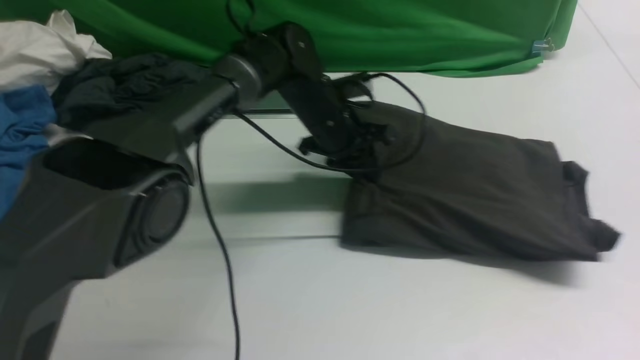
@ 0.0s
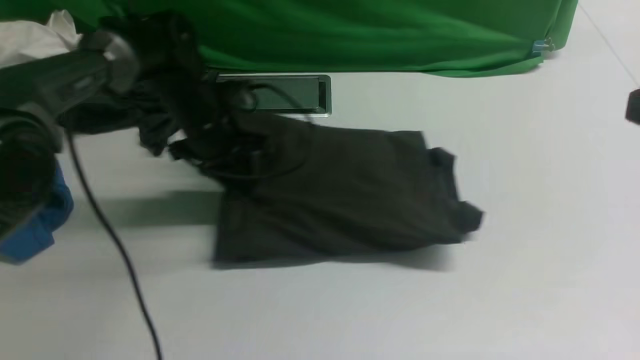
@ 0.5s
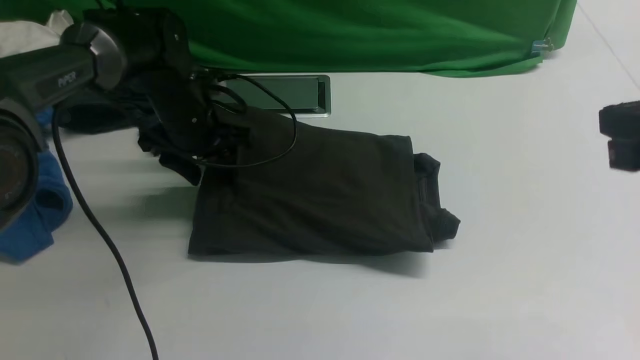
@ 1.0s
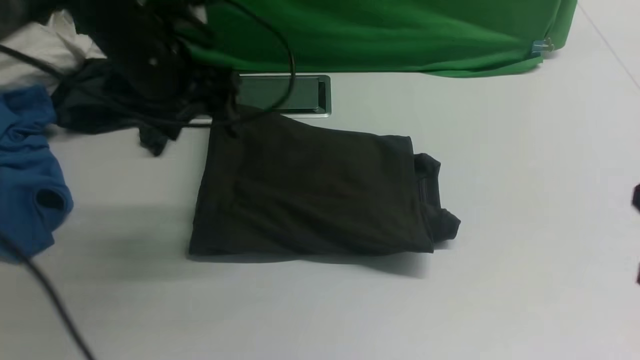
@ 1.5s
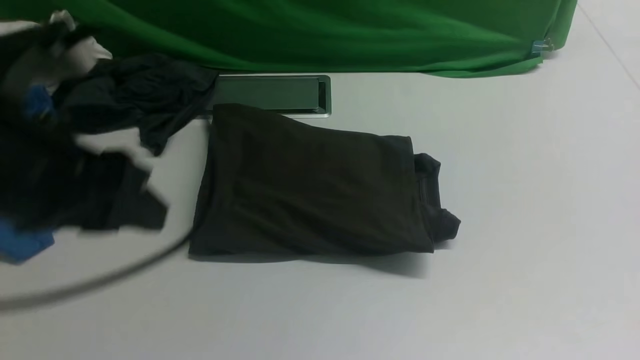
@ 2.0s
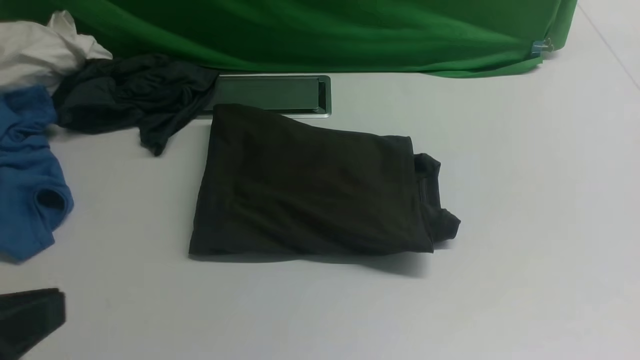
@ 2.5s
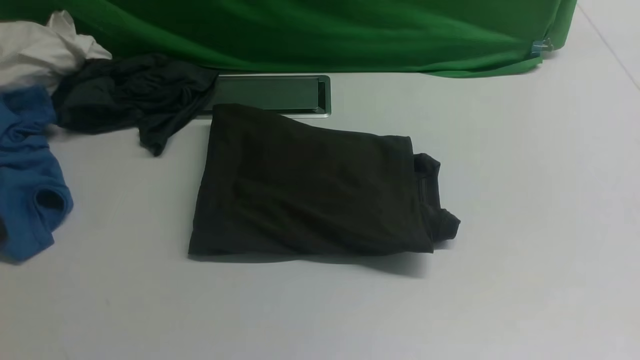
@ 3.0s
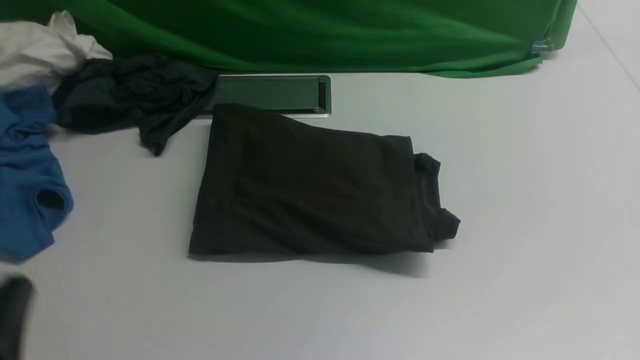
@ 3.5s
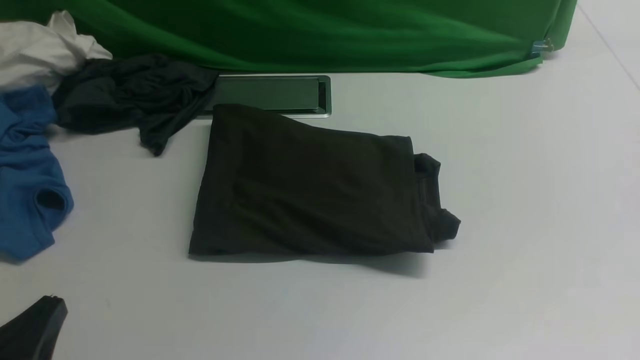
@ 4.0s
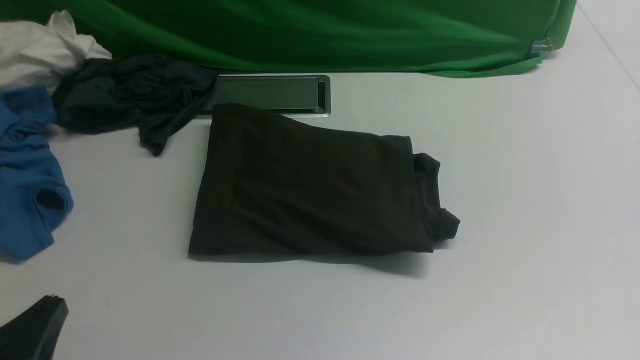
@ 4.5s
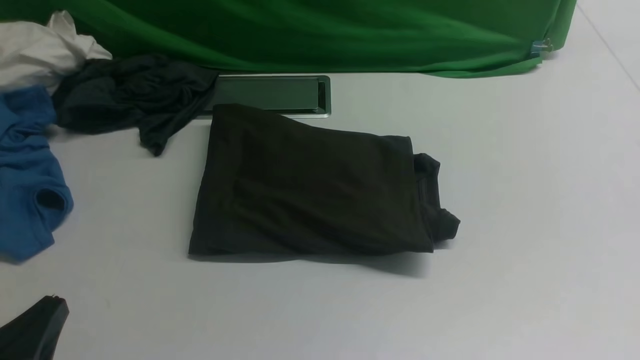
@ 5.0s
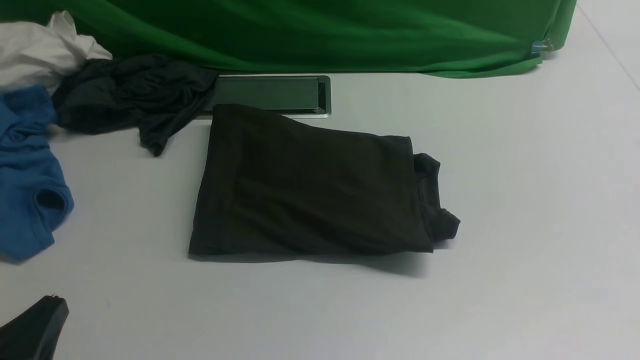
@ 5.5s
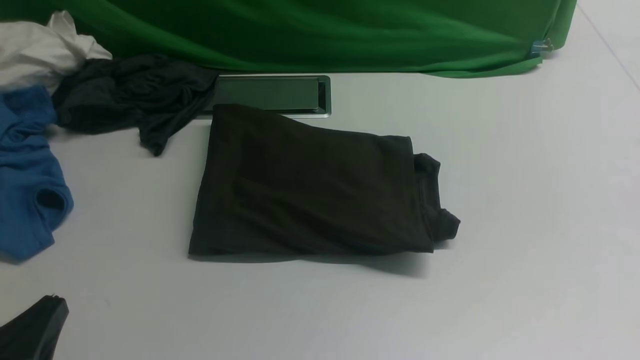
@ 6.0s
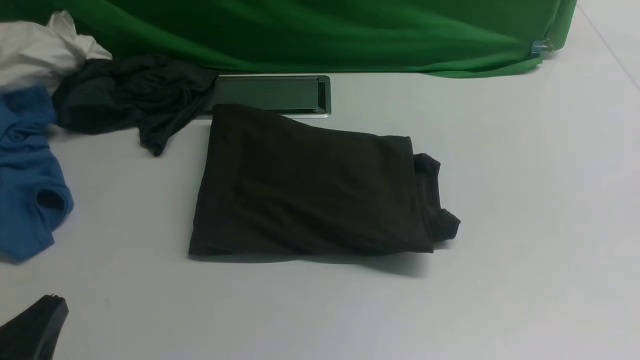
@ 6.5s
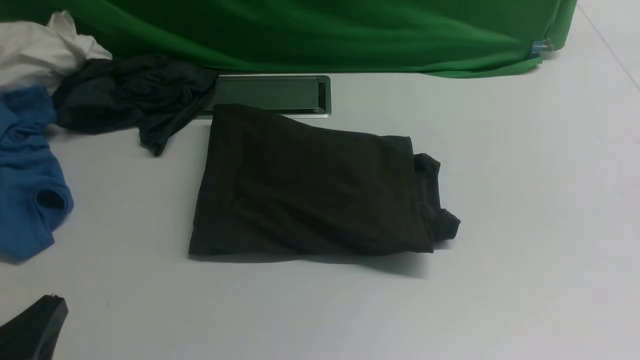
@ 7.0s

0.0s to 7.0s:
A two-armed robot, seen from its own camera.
0.0s to 2.0s: The left gripper goes about 40 cm backward, upward and to the left, and opens, then closes again, while the right gripper goes about 10 cm downward.
2.0s to 3.5s: The left gripper travels downward and backward by approximately 20 cm, and closes its fingers.
